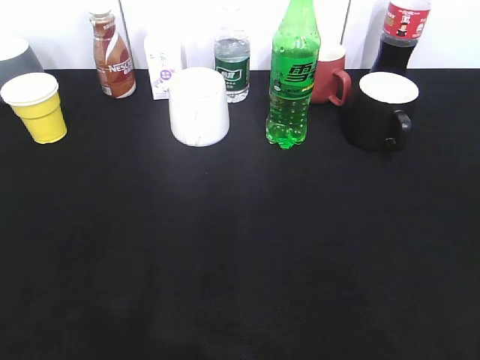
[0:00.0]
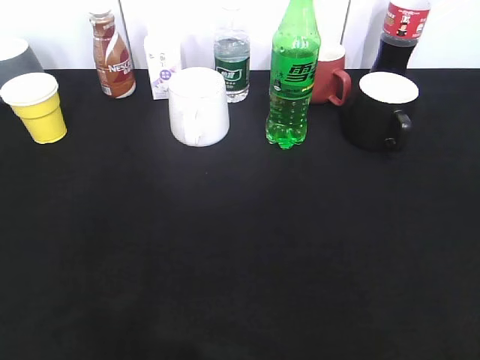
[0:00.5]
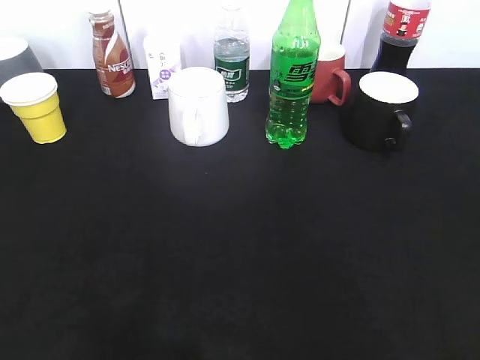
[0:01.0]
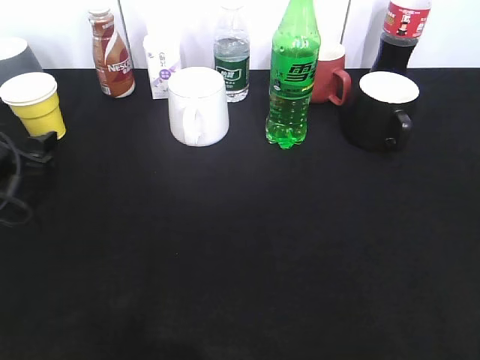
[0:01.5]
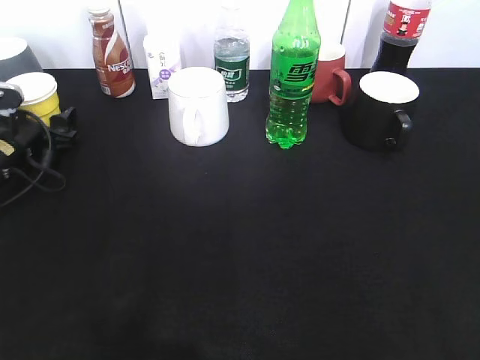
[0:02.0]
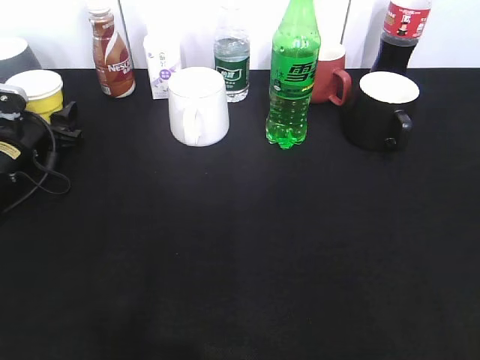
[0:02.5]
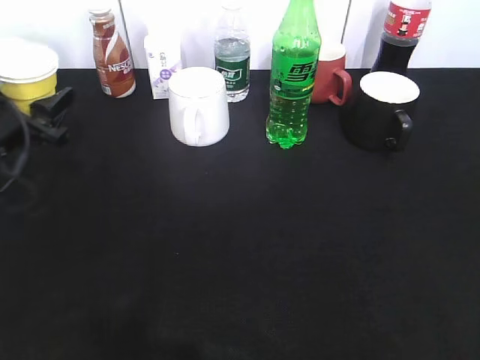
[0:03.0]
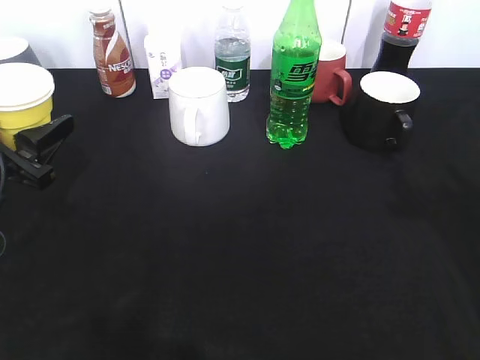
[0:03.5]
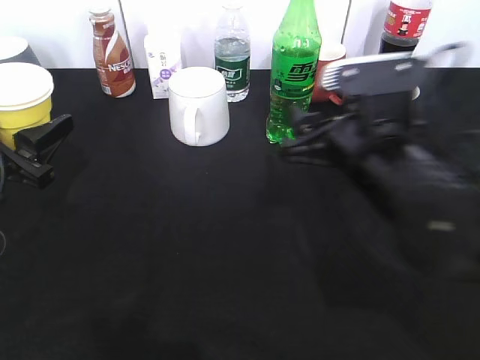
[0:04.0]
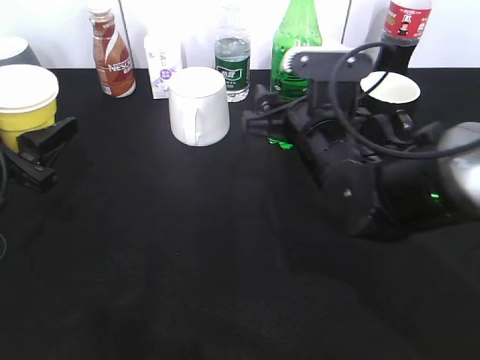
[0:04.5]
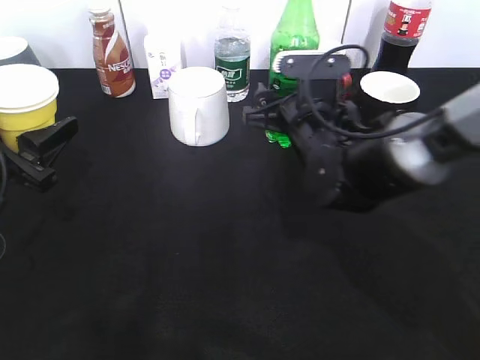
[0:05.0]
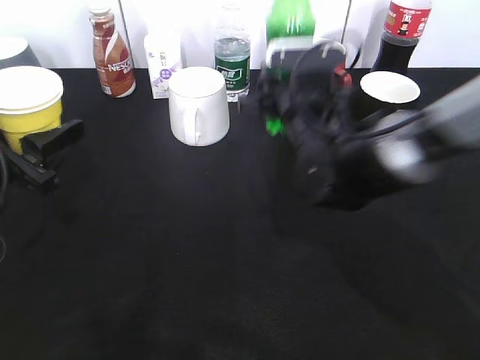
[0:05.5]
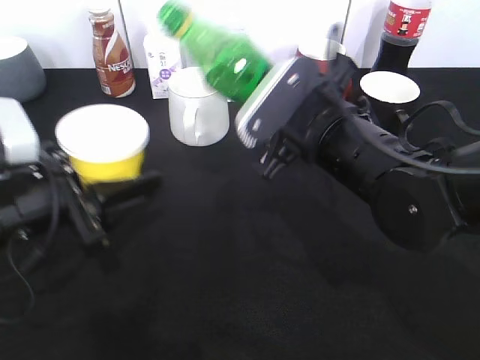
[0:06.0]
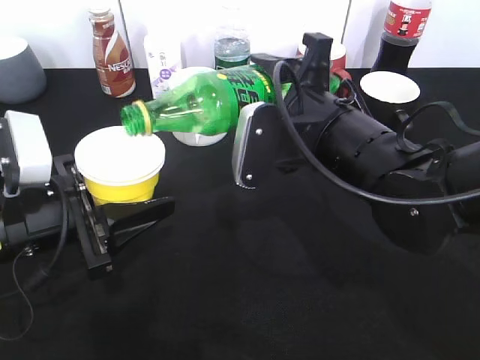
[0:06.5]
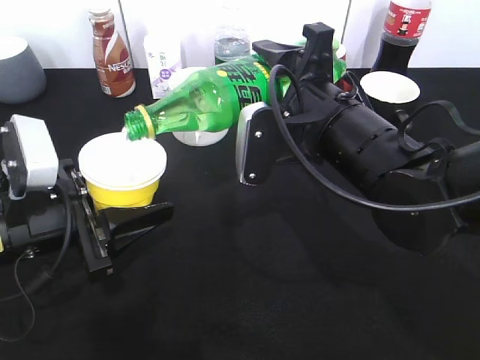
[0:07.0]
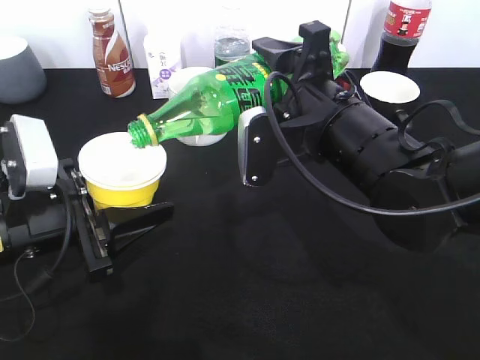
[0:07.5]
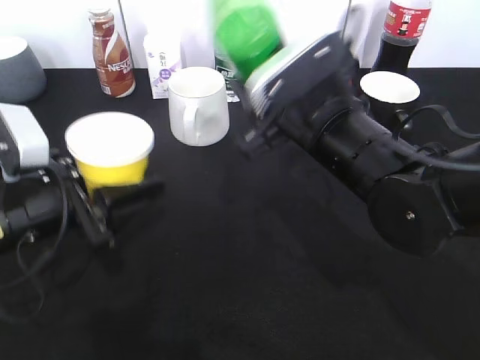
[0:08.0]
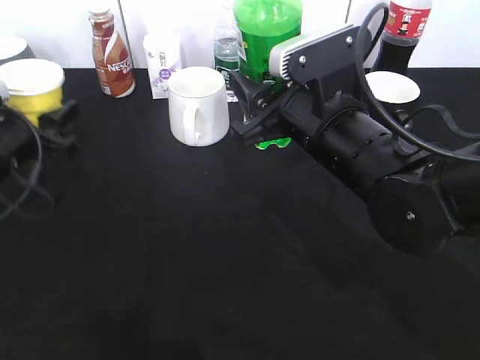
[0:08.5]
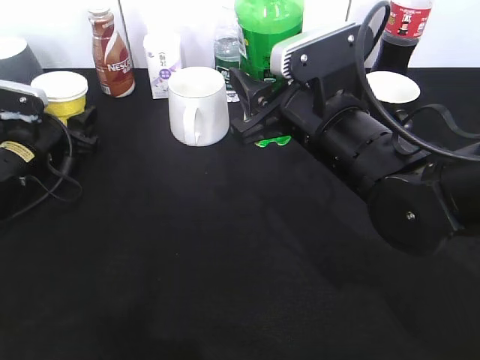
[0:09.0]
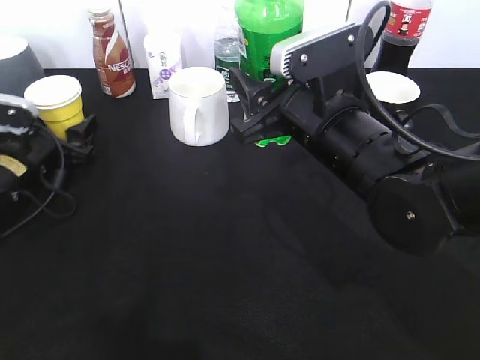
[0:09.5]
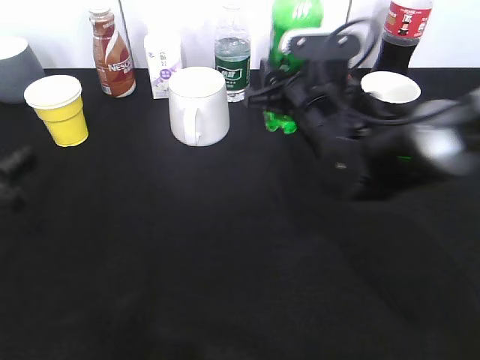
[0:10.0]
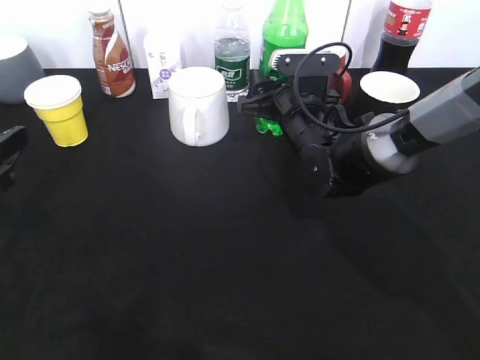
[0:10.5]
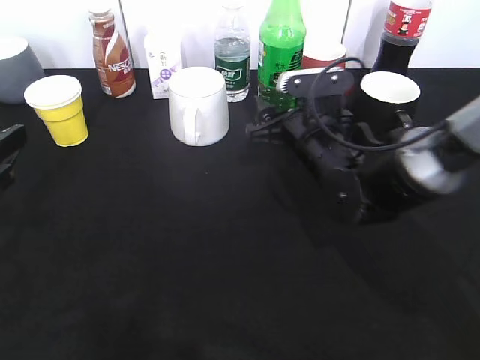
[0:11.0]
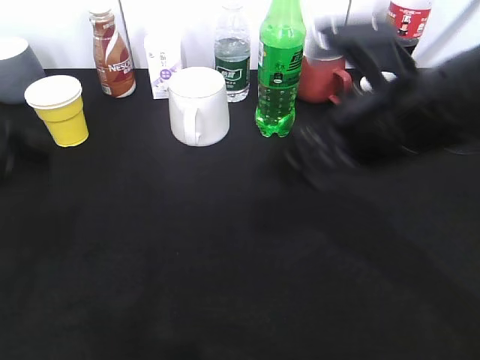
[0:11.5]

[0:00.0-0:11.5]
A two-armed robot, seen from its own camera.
Step, 0:00.0 to 0:02.5: Grasp the yellow paper cup with left gripper.
Step, 0:03.0 to 0:03.5: Lift the yellow paper cup with left gripper.
Step, 0:04.0 to 0:05.0: Grasp the bottle with sprite with right gripper.
Step, 0:05.5 to 0:07.5: Pour the sprite from bottle to cup with right gripper.
Step, 0:08.0 to 0:11.0: Place the sprite bottle on the table with right gripper.
0:00.0 to 0:02.0: The left gripper heads forward and downward, covering some 40 cm.
0:02.0 to 0:04.0: The left gripper is displaced backward and upward by approximately 15 cm, and closes up; the right gripper shifts about 35 cm forward, to the left and downward.
0:04.0 to 0:06.0: The left gripper goes some 5 cm to the right. Meanwhile the right gripper goes forward and returns, some 10 cm each way, and closes its fingers.
0:07.5 to 0:09.5: The left gripper shifts roughly 20 cm forward, to the left and downward, and opens.
0:09.5 to 0:11.5: The right gripper reaches approximately 10 cm forward, then returns, and opens. Meanwhile the left gripper moves upward and backward, some 25 cm.

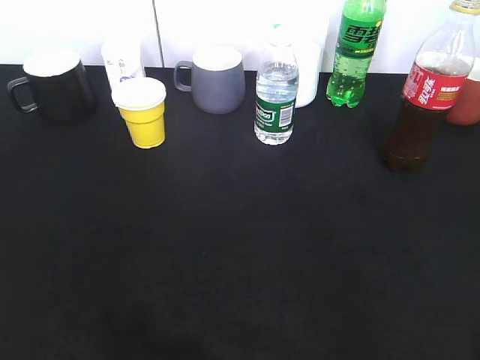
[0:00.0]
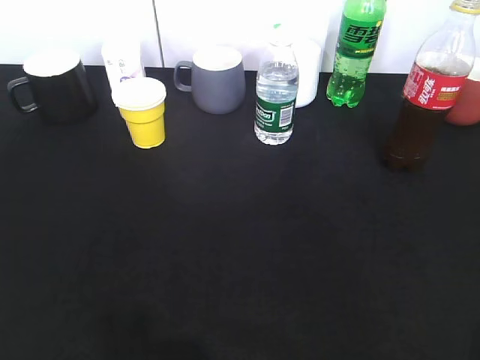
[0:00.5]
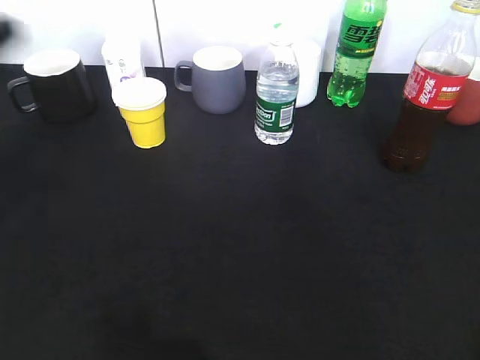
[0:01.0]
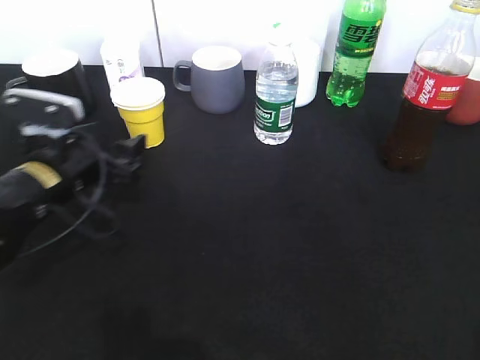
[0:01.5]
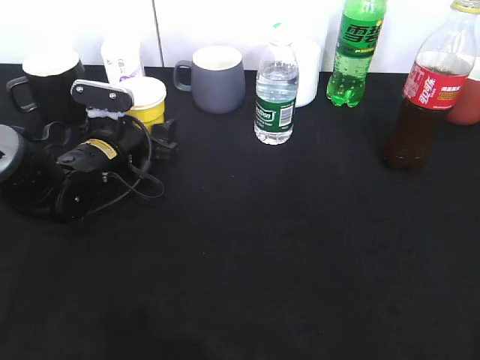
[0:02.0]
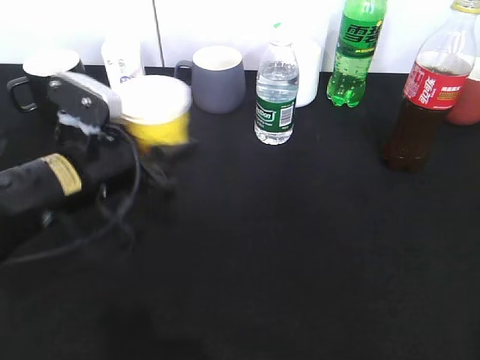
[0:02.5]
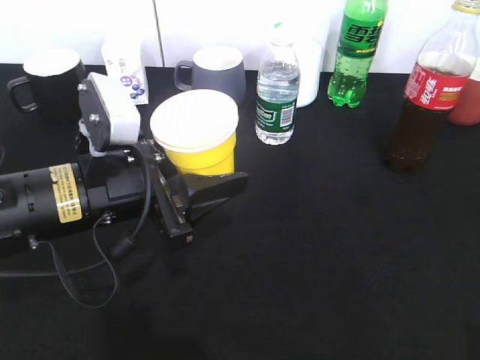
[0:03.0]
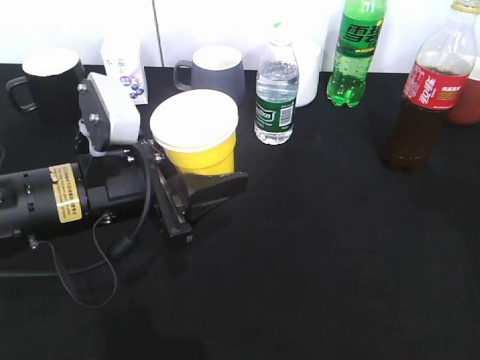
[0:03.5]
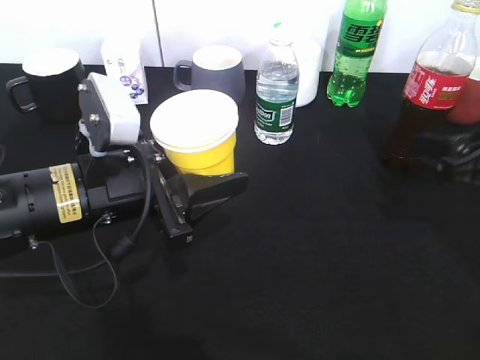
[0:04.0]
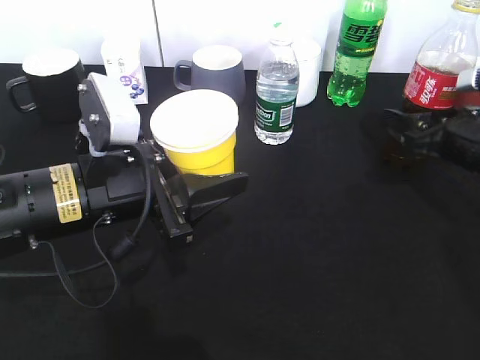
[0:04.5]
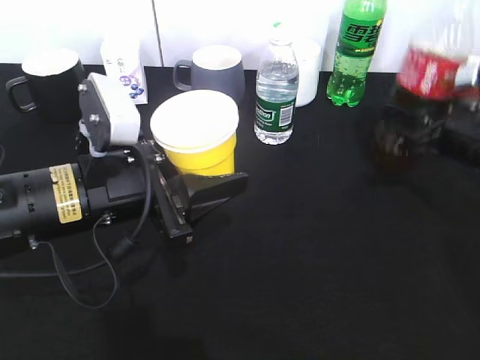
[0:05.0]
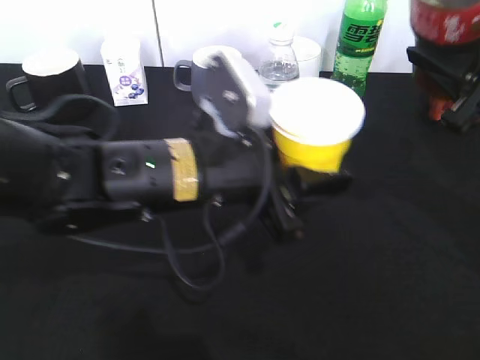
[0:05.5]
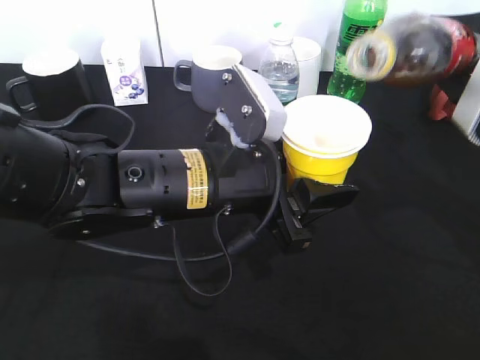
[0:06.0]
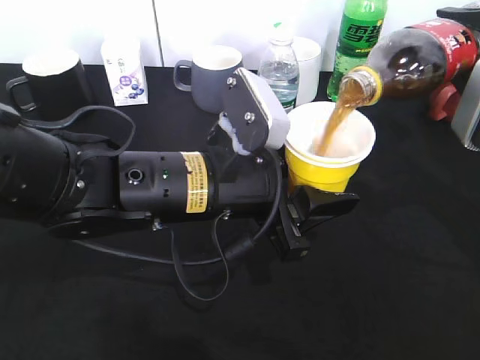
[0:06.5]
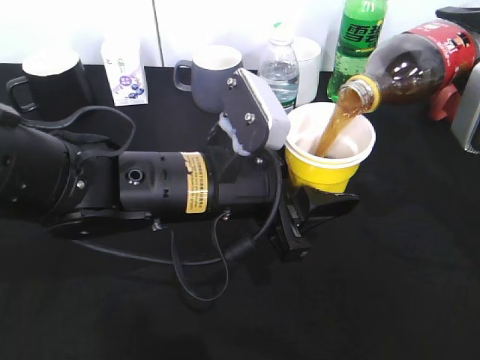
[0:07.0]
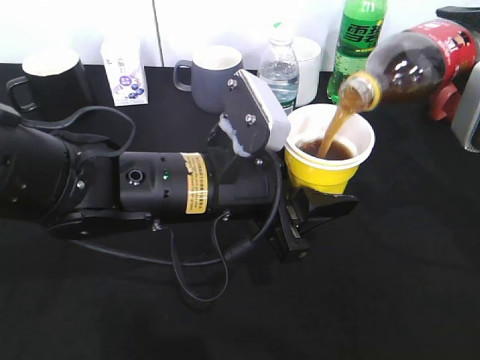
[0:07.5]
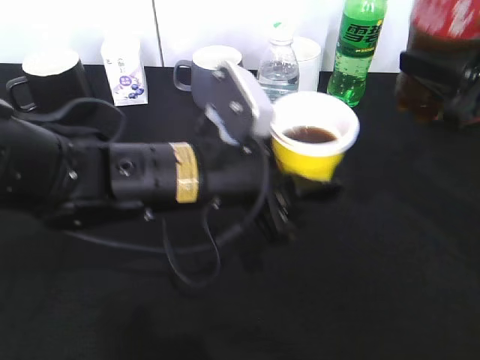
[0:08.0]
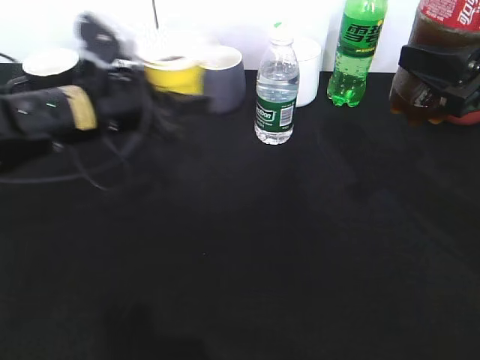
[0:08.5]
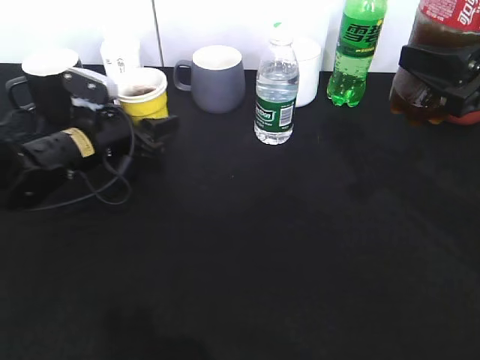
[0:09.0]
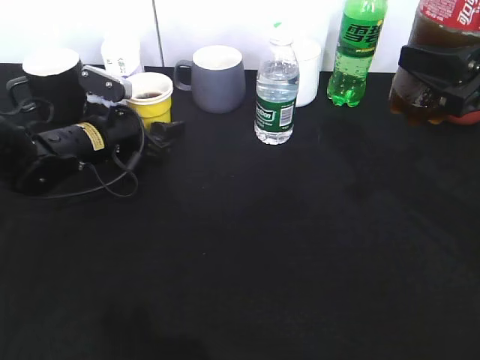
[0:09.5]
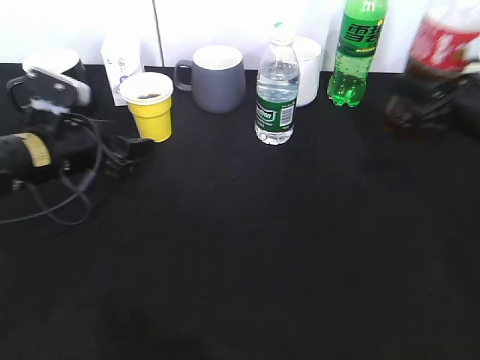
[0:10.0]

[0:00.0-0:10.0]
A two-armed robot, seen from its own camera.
Step, 0:00.5 to 0:02.0: Grasp the yellow paper cup with left gripper.
Step, 0:03.0 to 0:04.5: Grasp the bottle with cola with right gripper.
Step, 0:05.0 to 0:07.0: Pour the cola from bottle to cup with right gripper.
Step, 0:07.5 to 0:09.5: Place the yellow paper cup on the table with left gripper.
0:00.0 to 0:02.0: The left gripper shifts approximately 40 cm forward, downward and to the right, and opens.
0:02.0 to 0:04.0: The left gripper heads backward and upward, covering some 15 cm. The right gripper moves forward and downward, roughly 25 cm.
0:04.0 to 0:06.0: The left gripper travels to the right by approximately 10 cm. Meanwhile the right gripper travels upward by roughly 10 cm, and closes.
0:08.0 to 0:10.0: The right gripper travels downward and forward by about 10 cm, while the left gripper travels to the left and forward by about 20 cm, and opens its fingers.

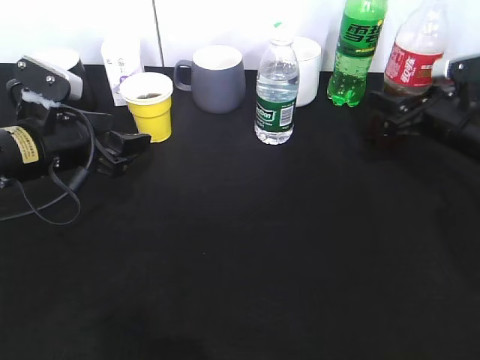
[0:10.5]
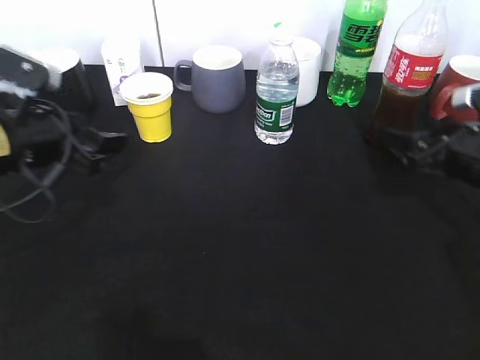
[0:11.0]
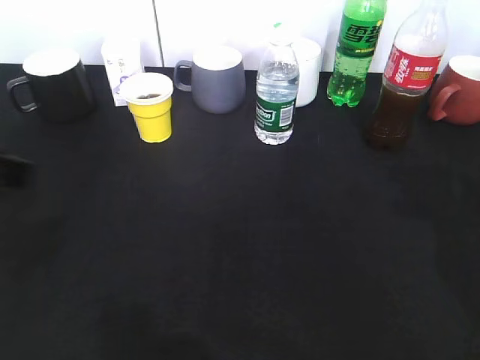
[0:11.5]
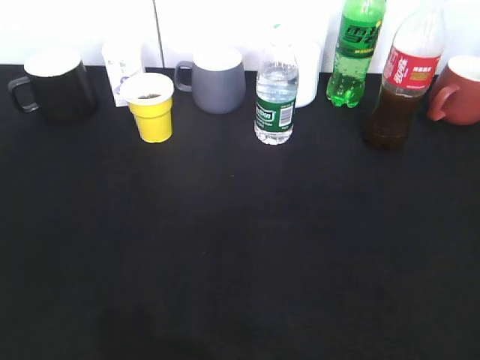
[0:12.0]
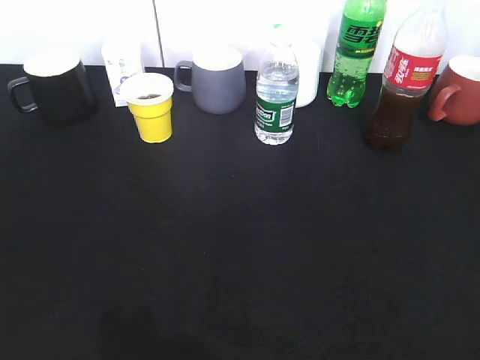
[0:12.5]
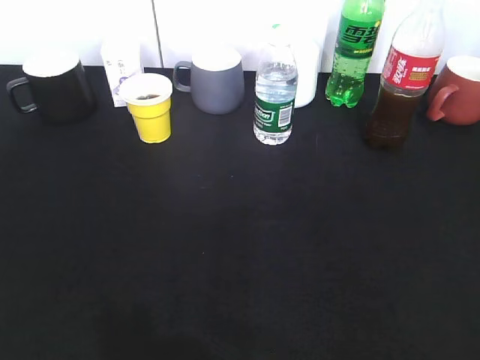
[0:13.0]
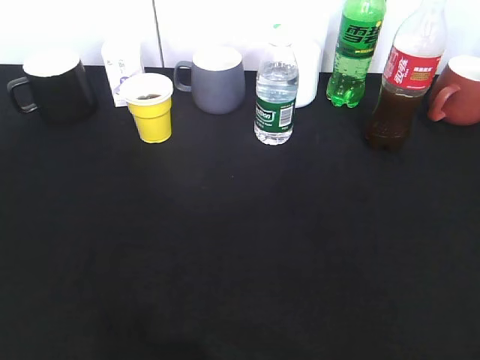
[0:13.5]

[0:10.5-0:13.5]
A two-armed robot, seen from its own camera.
0:10.5 to 0:12.0: Both grippers move backward and upward, about 40 cm.
